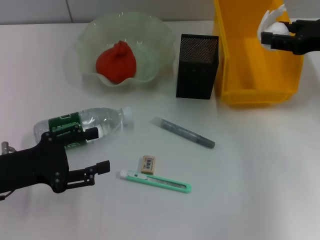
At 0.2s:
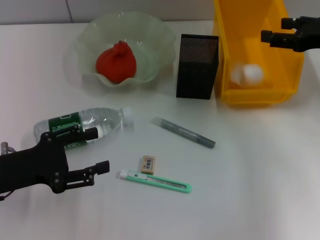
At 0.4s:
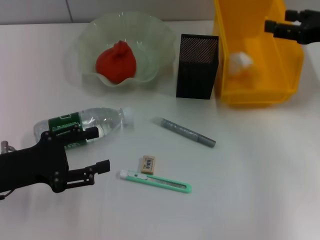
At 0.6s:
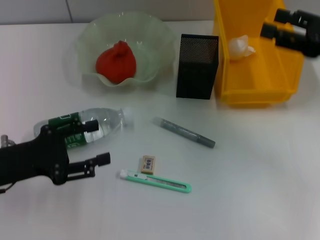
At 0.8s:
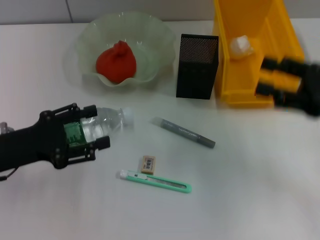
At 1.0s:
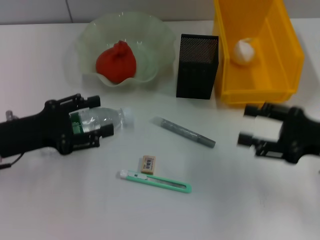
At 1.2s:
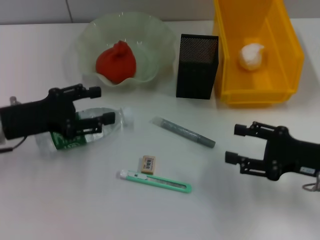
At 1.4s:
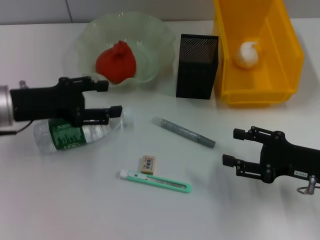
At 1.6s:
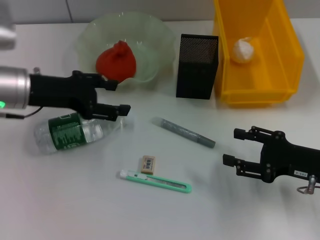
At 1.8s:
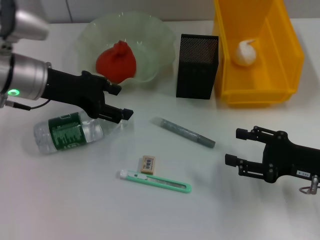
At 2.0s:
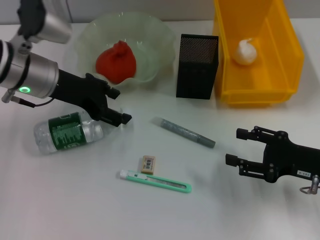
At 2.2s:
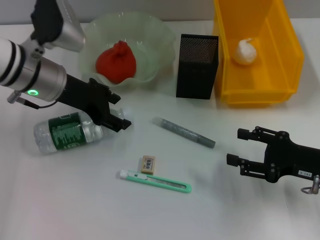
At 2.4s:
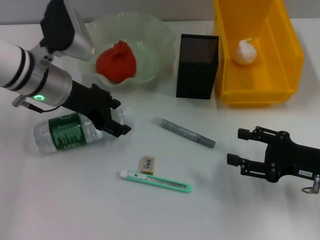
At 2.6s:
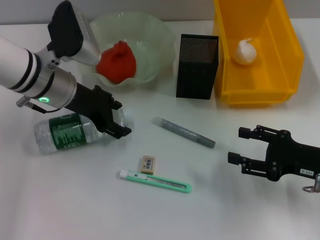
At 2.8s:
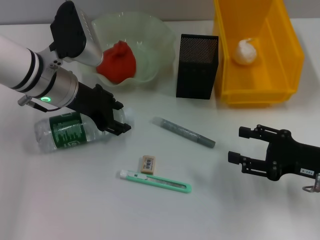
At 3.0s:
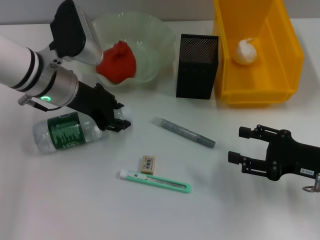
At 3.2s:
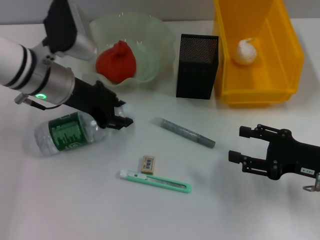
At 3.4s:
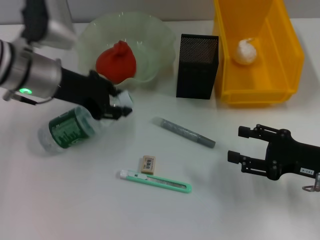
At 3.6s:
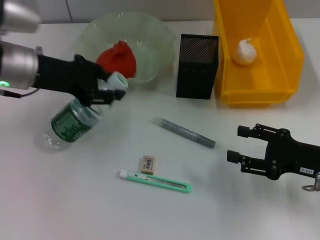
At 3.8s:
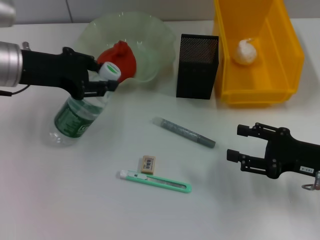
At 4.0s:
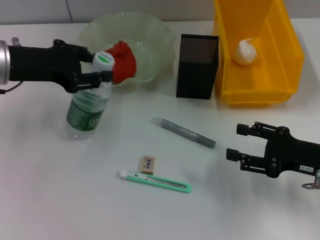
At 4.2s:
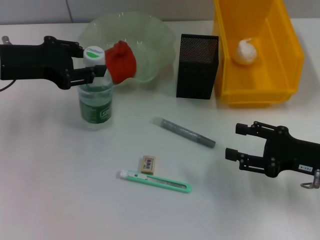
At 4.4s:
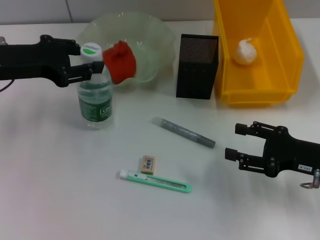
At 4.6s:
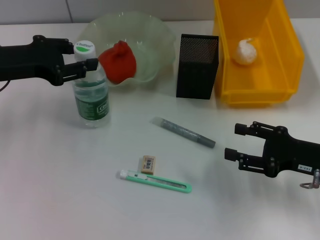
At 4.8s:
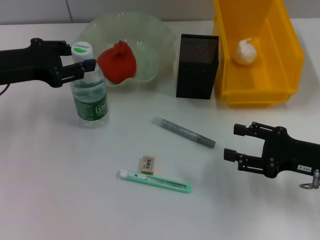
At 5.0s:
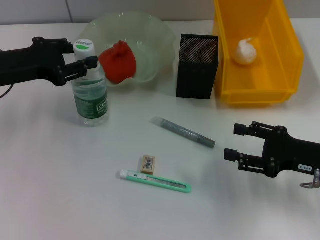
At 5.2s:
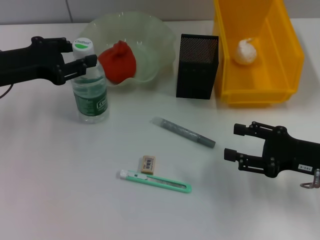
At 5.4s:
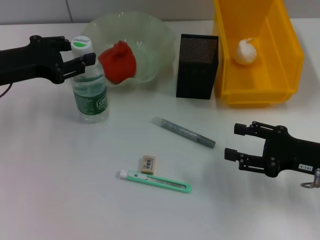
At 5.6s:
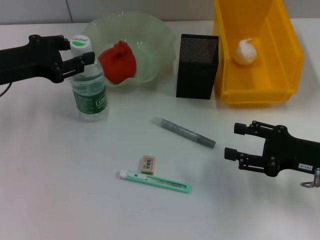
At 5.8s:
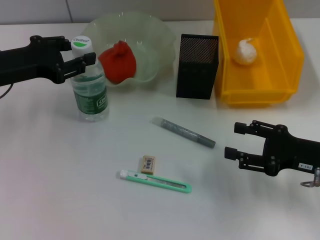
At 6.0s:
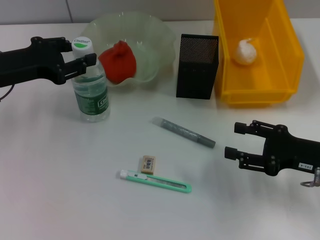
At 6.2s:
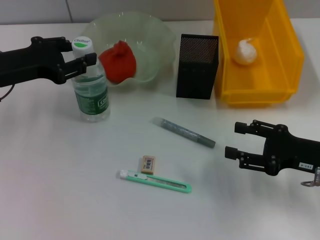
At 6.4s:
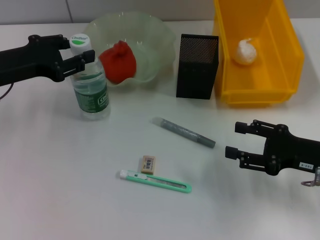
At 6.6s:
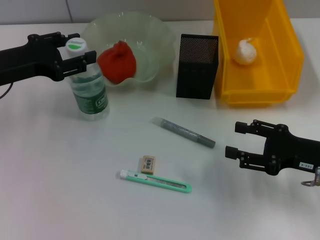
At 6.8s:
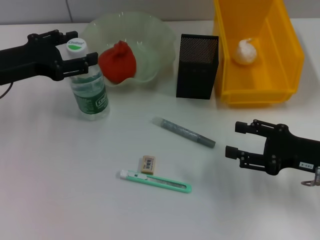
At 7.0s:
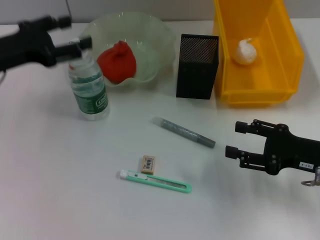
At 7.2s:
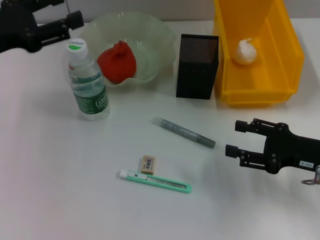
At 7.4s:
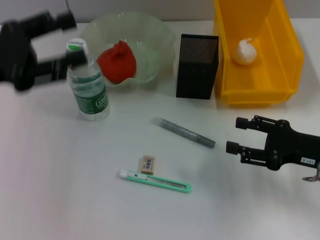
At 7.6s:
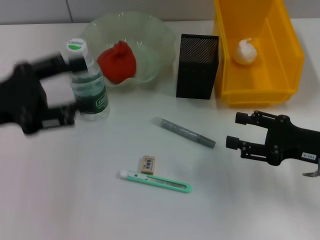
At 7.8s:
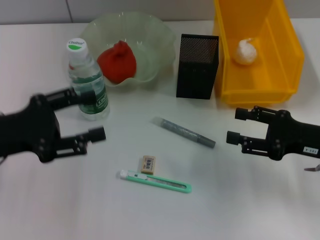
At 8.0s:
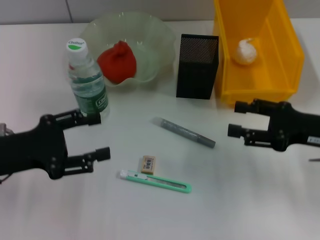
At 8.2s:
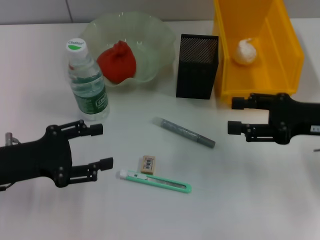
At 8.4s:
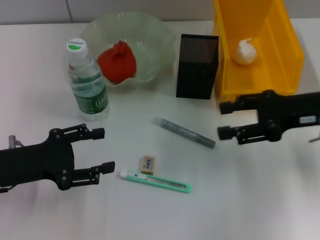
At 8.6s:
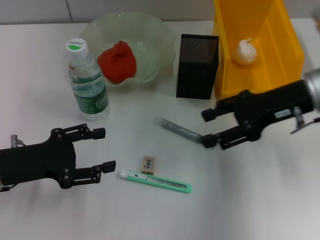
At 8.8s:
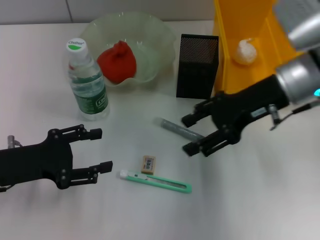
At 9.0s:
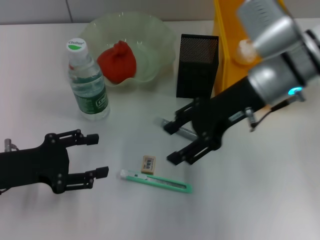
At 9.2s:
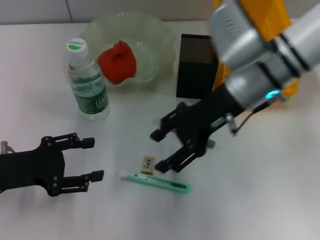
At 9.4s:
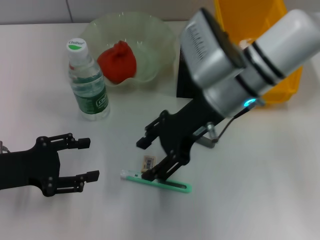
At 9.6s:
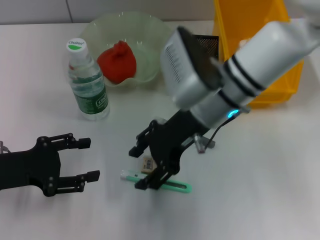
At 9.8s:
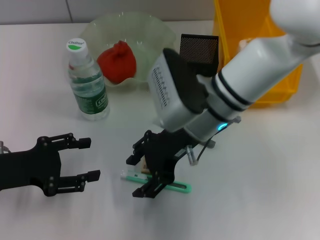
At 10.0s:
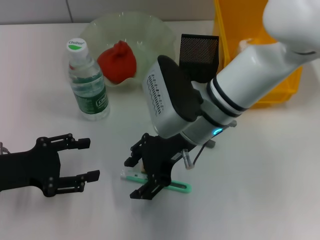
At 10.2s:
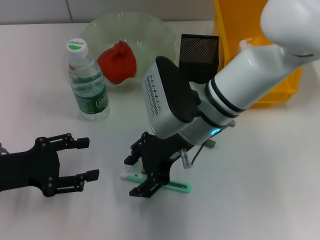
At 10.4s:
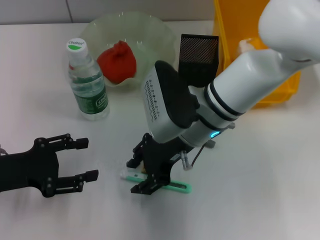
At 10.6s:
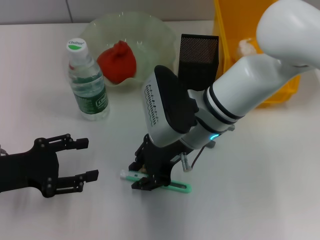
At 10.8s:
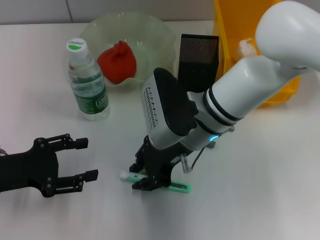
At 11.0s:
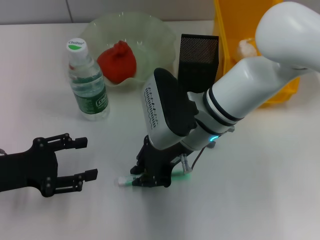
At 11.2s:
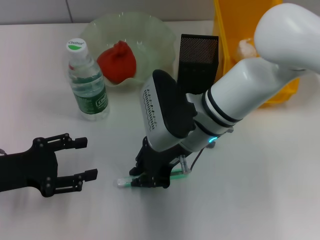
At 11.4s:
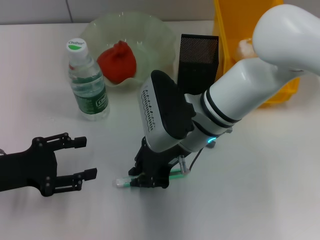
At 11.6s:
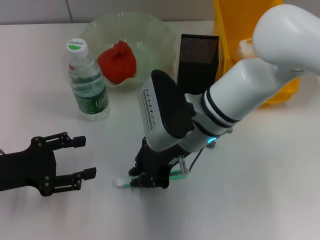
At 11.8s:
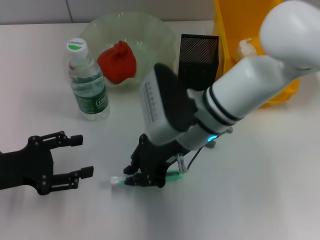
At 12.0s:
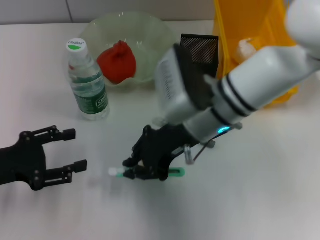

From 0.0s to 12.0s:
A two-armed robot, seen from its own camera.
Step, from 0.4s to 2.6s: Grab the water bottle with the left hand.
Step, from 3.0s to 6.8s: Place the water bottle on the table with the left hand.
Step, from 7.0s to 11.6s: Grab the blue utility knife with the right hand.
From 0.0s to 1.6s: The left gripper moves forward and upward, roughly 15 cm, while the right gripper shifts roughly 20 cm downward and backward, and opens.
From 1.6s to 3.0s: The left gripper shifts approximately 5 cm to the right.
From 3.0s to 4.4s: The left gripper travels to the left by approximately 10 cm, and closes.
From 4.4s to 6.0s: The grippers make only small movements.
From 6.0s to 7.6s: The left gripper is displaced backward by some 10 cm, and opens its fingers.
From 7.6s to 9.0s: The left gripper heads downward, covering approximately 10 cm. Meanwhile the right gripper heads to the left, upward and forward, covering about 20 cm.
From 9.0s to 10.4s: The right gripper moves to the left and downward, roughly 10 cm.
From 10.4s to 12.0s: The right gripper closes.

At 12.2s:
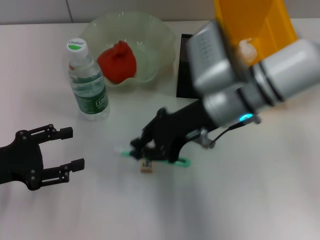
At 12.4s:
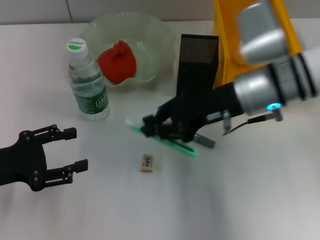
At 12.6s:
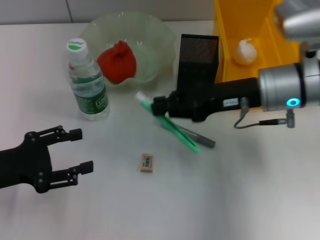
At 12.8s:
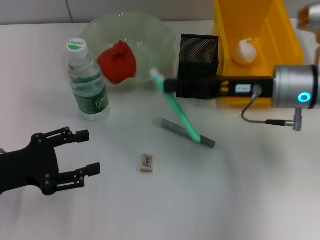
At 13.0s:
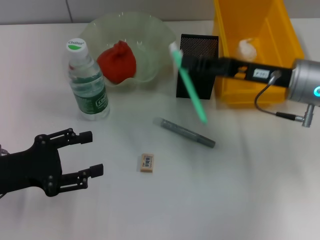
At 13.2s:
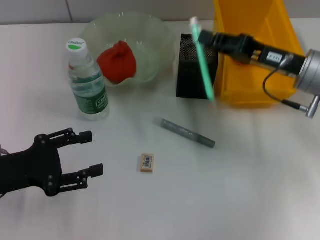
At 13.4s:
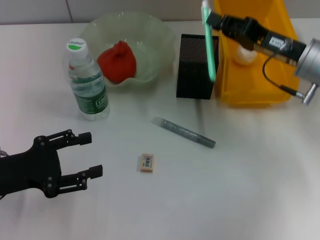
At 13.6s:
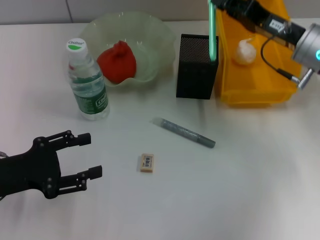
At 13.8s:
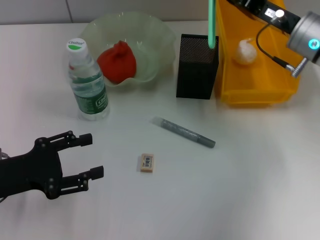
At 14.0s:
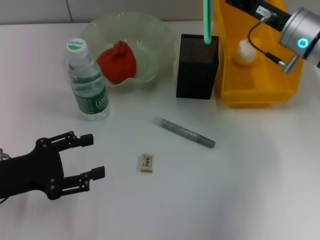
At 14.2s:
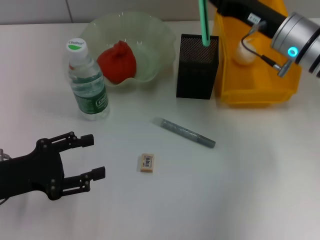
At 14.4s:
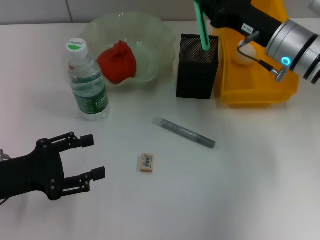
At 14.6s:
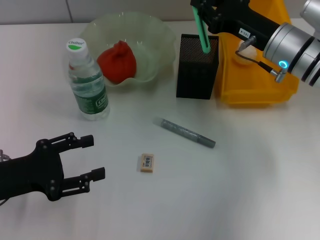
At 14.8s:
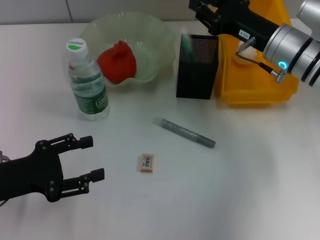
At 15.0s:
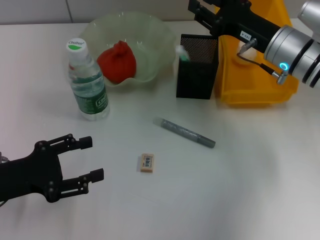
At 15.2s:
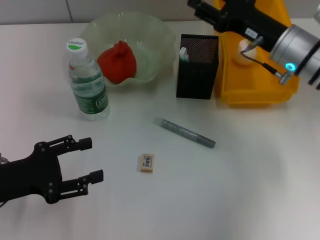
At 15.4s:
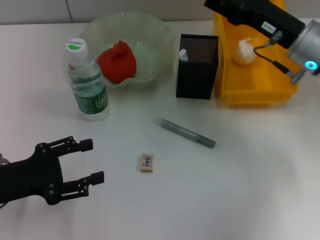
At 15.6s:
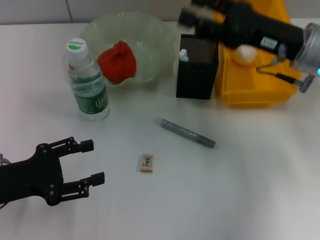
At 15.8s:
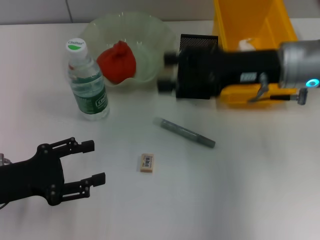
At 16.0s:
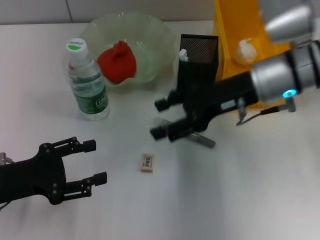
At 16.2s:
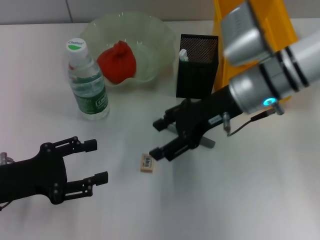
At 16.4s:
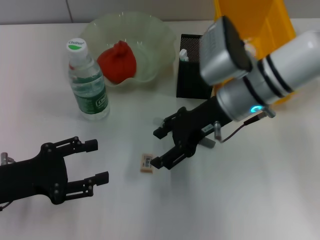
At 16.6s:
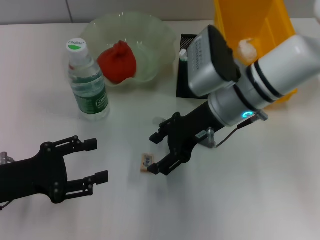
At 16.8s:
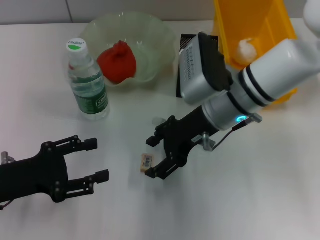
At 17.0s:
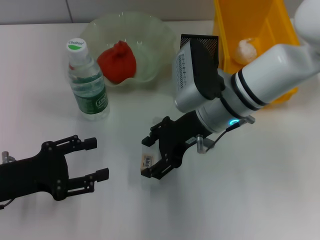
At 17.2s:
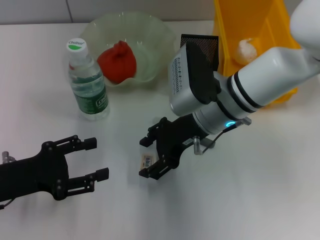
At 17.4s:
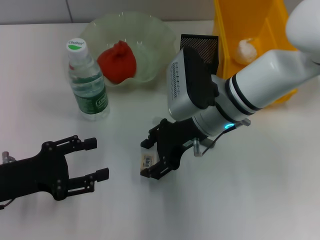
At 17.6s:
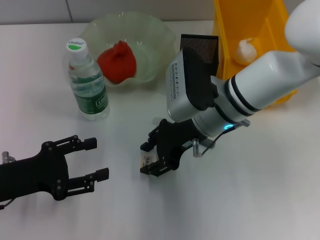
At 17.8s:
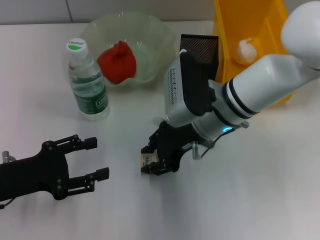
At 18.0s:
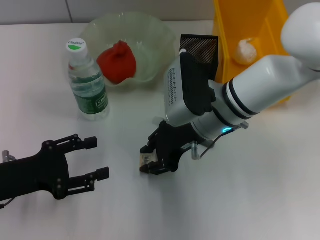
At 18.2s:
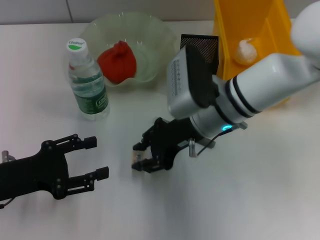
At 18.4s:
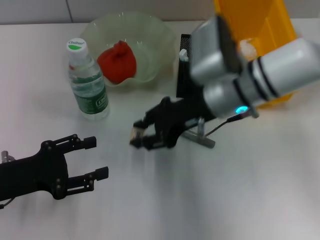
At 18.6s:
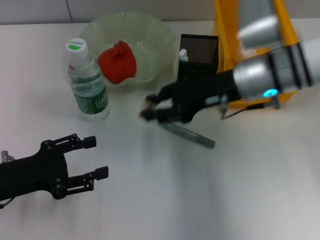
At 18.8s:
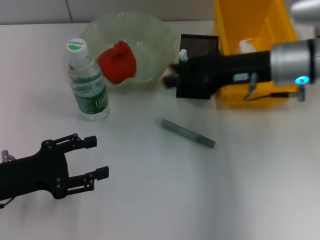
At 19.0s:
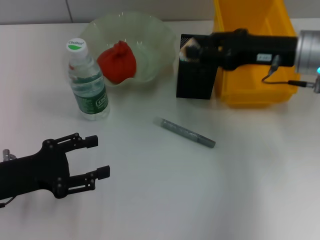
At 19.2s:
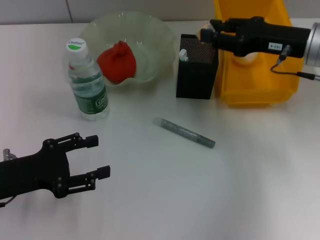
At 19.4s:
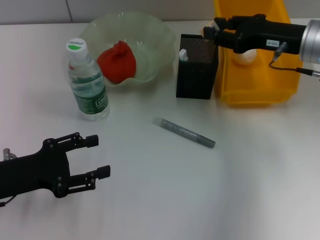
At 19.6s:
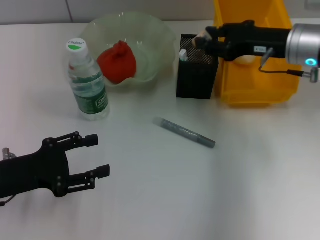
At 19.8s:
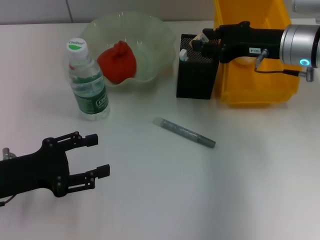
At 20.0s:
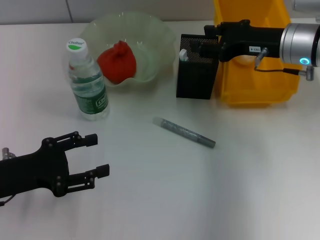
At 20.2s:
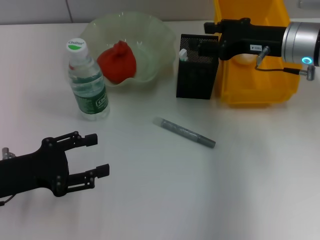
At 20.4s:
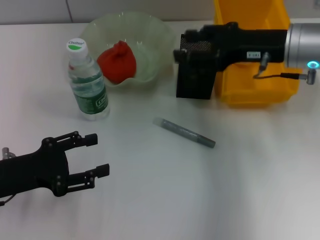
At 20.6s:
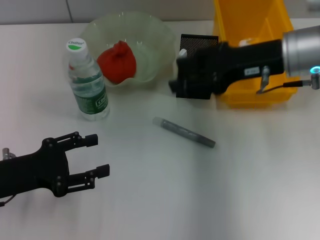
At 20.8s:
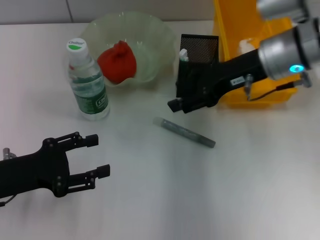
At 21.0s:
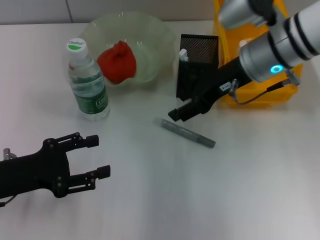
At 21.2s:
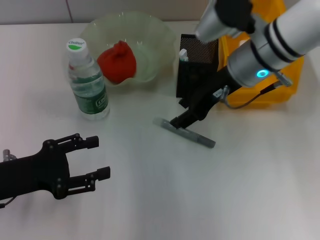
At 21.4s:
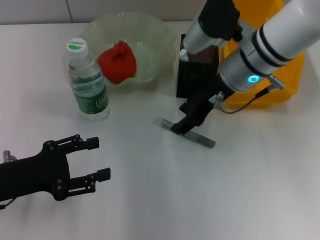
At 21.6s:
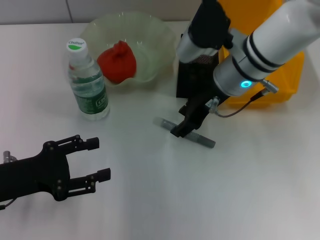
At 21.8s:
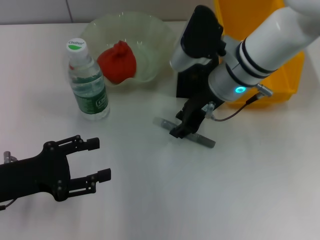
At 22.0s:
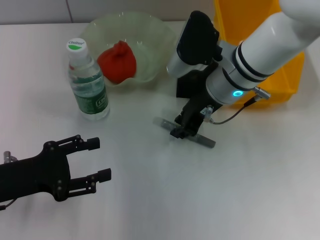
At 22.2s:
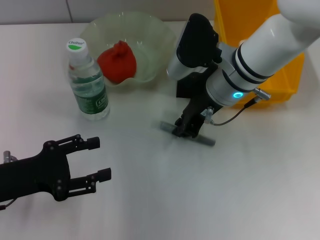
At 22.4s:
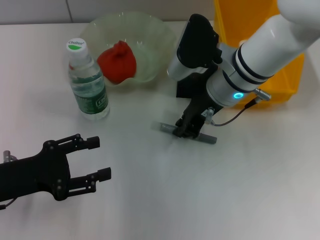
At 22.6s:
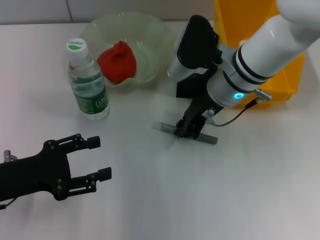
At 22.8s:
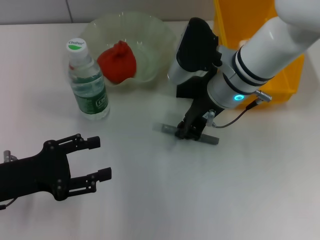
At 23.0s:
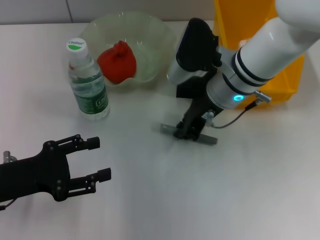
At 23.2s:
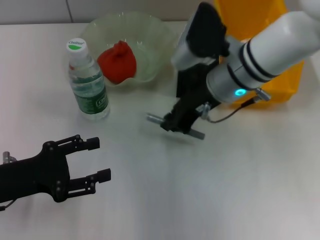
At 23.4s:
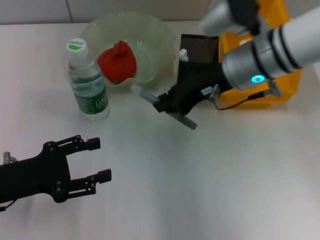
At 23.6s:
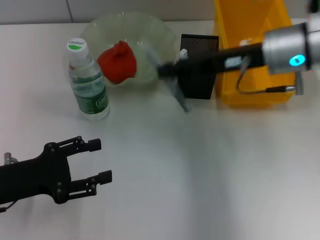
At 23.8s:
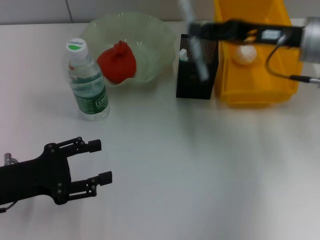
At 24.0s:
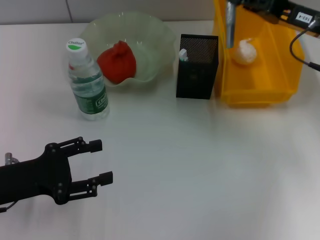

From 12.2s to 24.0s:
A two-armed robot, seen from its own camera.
Step, from 12.2s to 15.0s: Place the blue utility knife into the pen holder with the right hand.
Step, from 15.2s to 17.8s: Grab the eraser with the right hand.
Step, from 18.0s to 20.0s: Put the eraser into the pen holder with the right hand.
Step, from 20.2s to 22.8s: Grab the gray glue with the right hand.
From 12.2s to 13.6s: The right gripper travels to the right by roughly 10 cm.
From 13.6s to 15.2s: The right gripper opens.
From 15.2s to 16.6s: The right gripper moves to the left, about 10 cm, and opens up.
From 16.6s to 18.2s: The right gripper closes its fingers.
From 18.2s to 19.6s: The right gripper moves to the right, some 15 cm.
From 19.6s to 21.0s: The right gripper moves to the left, about 10 cm.
From 21.0s to 22.6s: The right gripper ends up some 5 cm from where it was, and closes up.
From 22.6s to 24.0s: The right gripper moves to the right, approximately 15 cm.
